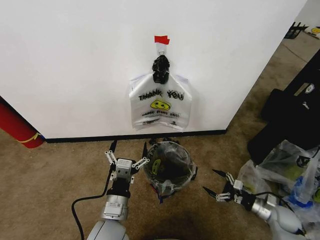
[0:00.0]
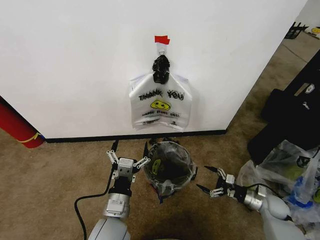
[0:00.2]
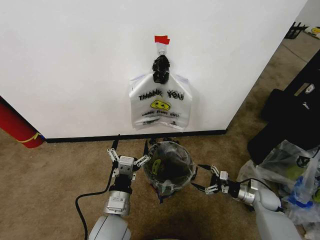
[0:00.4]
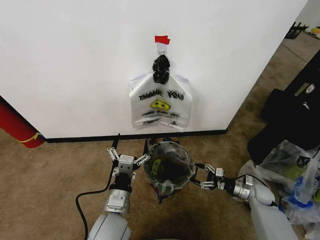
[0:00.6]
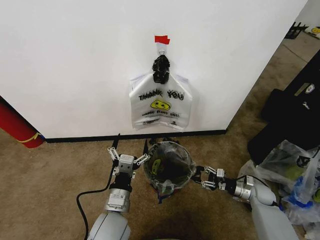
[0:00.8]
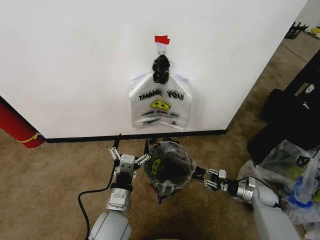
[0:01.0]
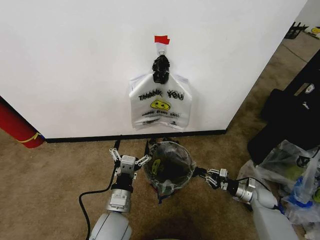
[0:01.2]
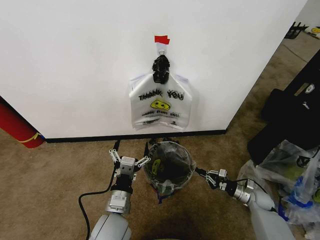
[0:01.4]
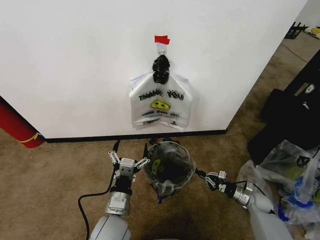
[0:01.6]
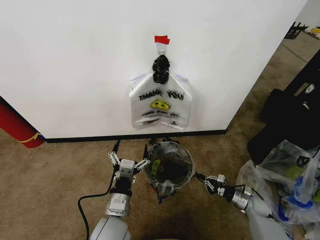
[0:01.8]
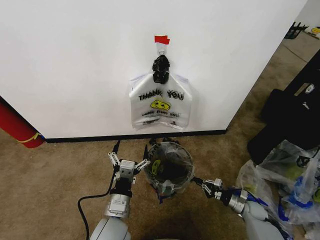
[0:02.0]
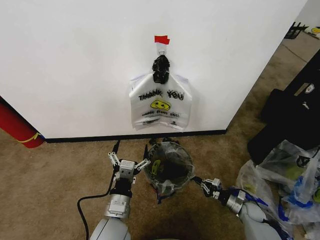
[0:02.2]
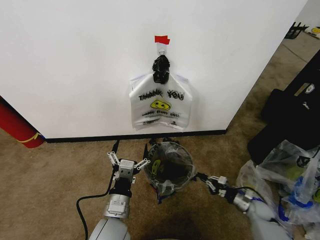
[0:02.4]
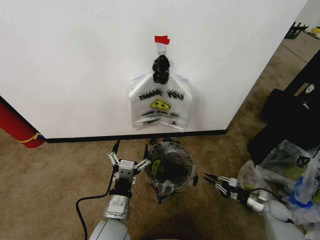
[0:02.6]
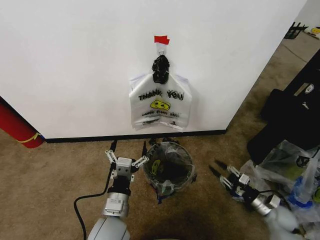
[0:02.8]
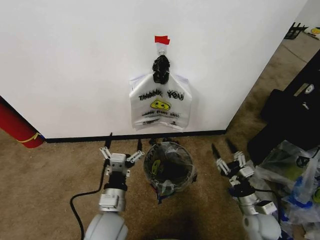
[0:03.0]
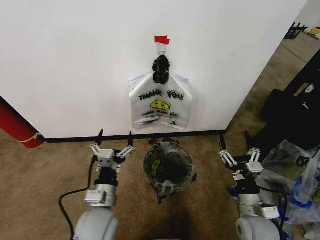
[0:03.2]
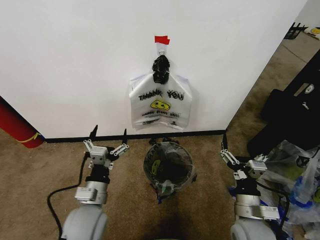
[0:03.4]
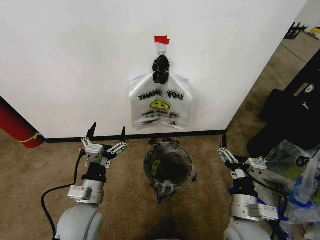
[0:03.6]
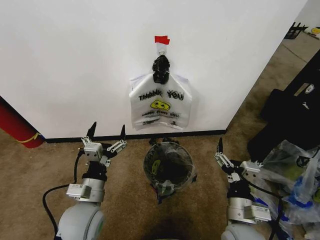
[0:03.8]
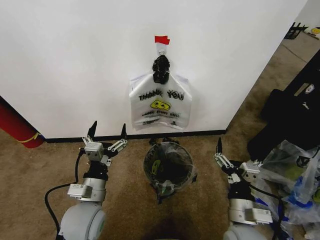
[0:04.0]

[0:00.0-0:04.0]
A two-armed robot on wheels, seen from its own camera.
Task of the whole recording: Pick up the garbage bag from the wall and place it over the trash bin.
0:00.0 to 0:01.4: The right gripper travels forward by some 10 cm, and closes up.
0:01.4 to 0:02.6: The right gripper changes place by some 5 cm.
0:02.6 to 0:04.0: The left gripper moves to the left, approximately 5 cm. The right gripper travels to the left, upward and backward by some 35 cm, and opens up.

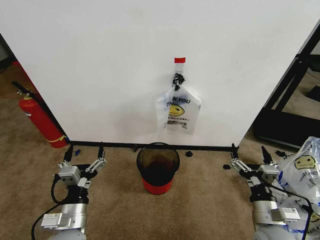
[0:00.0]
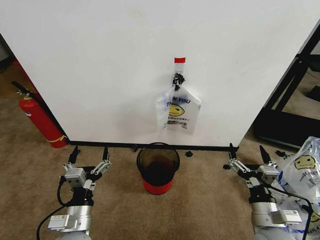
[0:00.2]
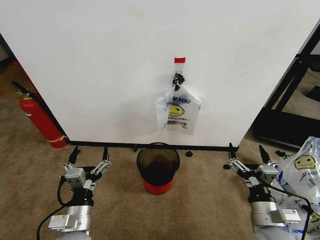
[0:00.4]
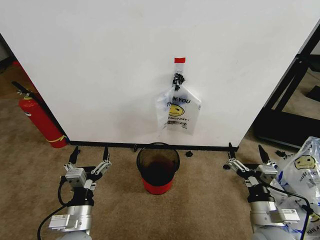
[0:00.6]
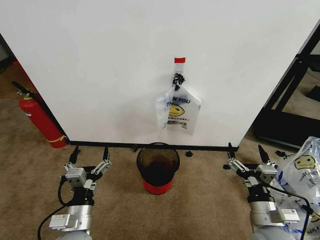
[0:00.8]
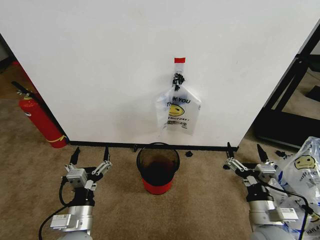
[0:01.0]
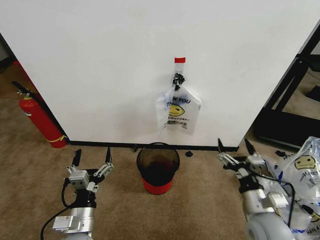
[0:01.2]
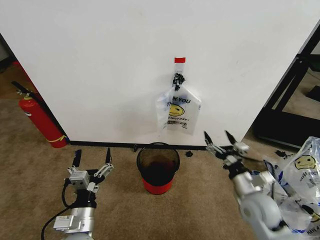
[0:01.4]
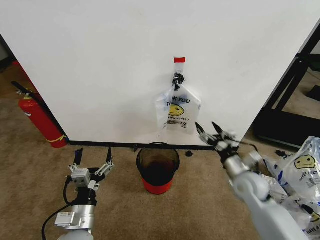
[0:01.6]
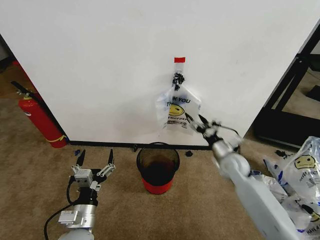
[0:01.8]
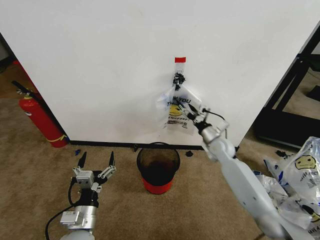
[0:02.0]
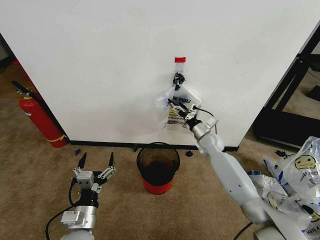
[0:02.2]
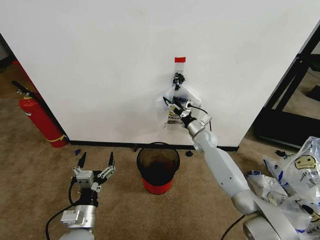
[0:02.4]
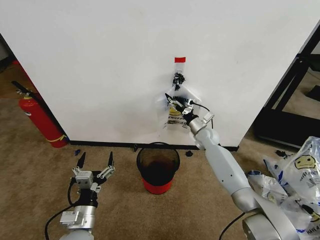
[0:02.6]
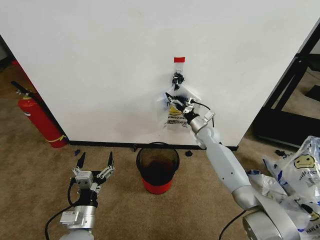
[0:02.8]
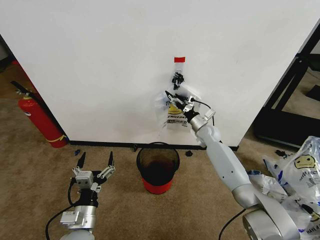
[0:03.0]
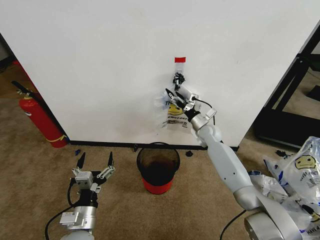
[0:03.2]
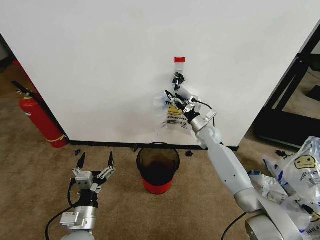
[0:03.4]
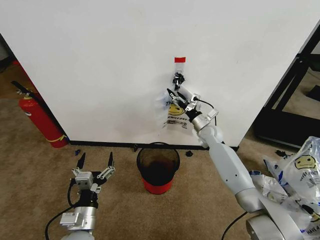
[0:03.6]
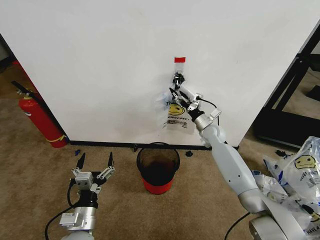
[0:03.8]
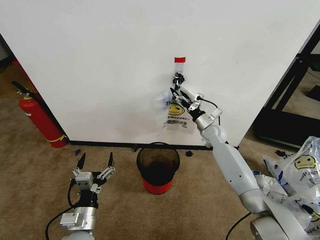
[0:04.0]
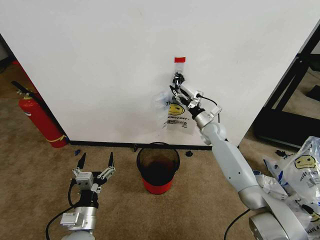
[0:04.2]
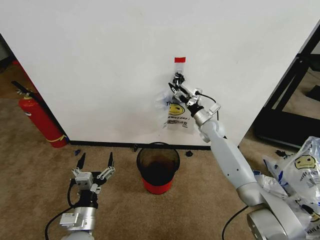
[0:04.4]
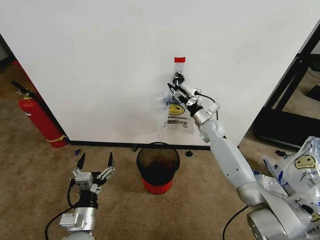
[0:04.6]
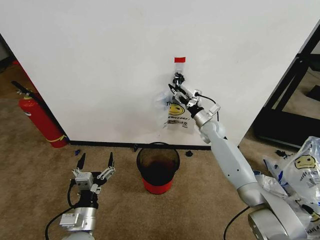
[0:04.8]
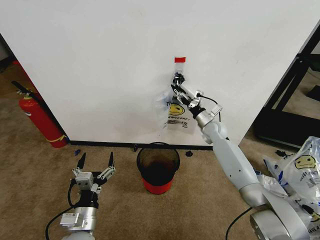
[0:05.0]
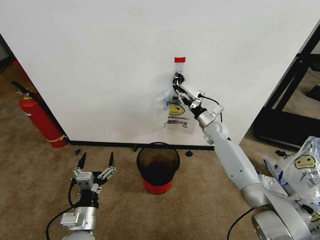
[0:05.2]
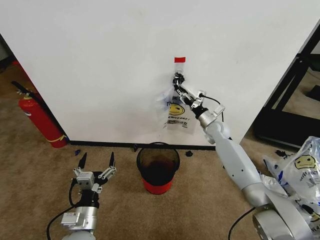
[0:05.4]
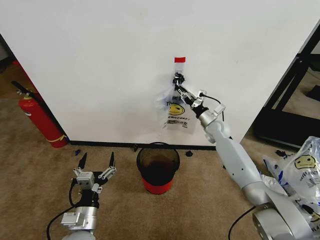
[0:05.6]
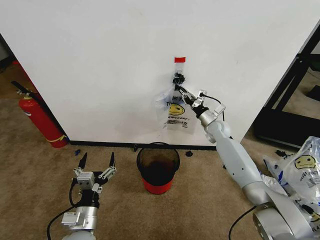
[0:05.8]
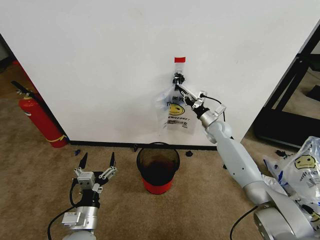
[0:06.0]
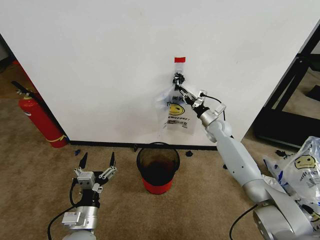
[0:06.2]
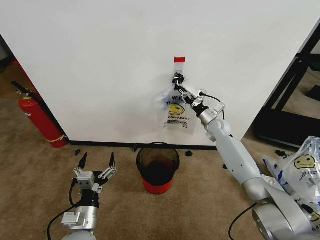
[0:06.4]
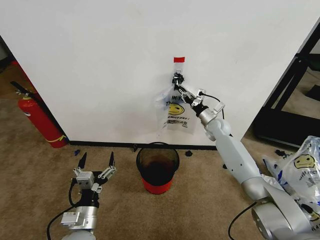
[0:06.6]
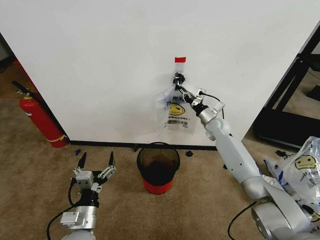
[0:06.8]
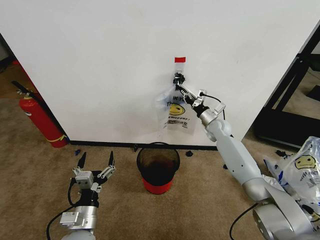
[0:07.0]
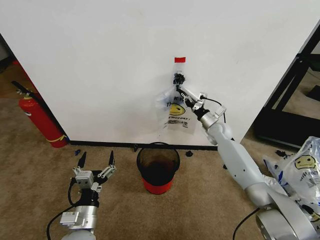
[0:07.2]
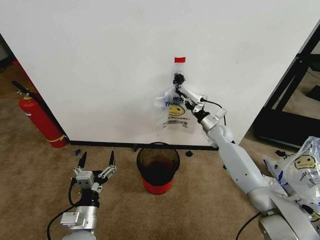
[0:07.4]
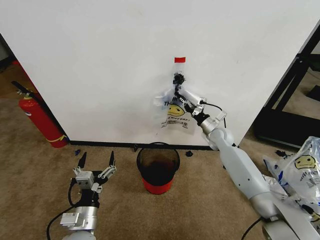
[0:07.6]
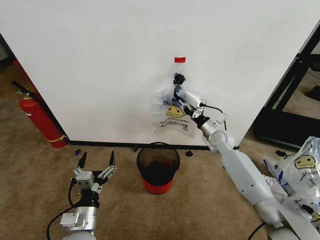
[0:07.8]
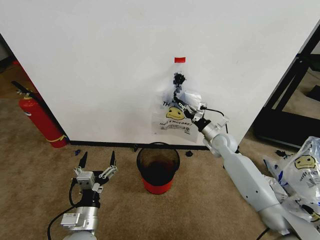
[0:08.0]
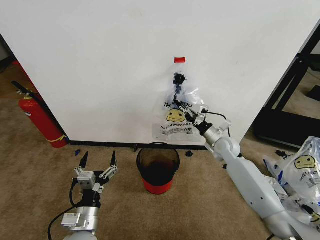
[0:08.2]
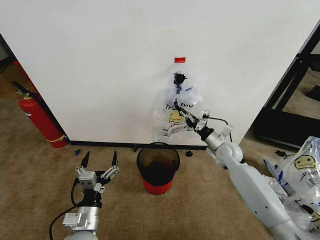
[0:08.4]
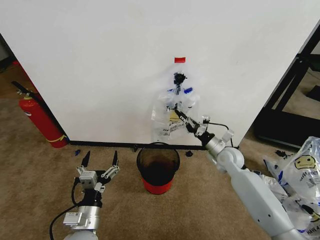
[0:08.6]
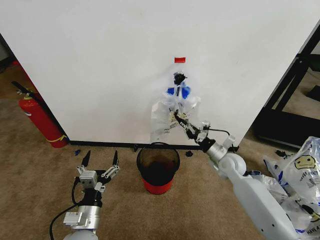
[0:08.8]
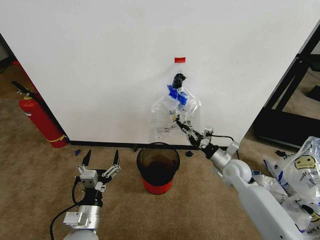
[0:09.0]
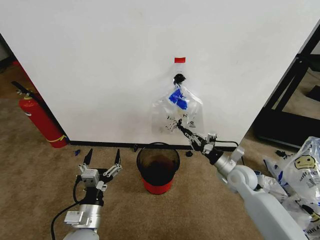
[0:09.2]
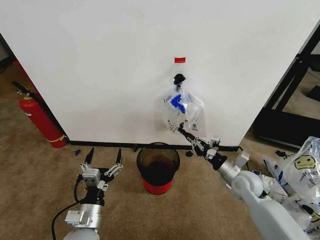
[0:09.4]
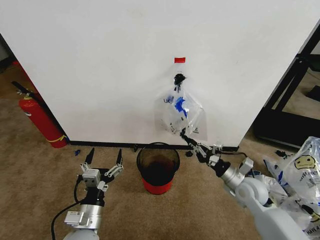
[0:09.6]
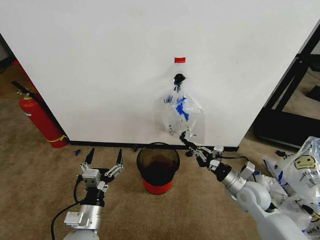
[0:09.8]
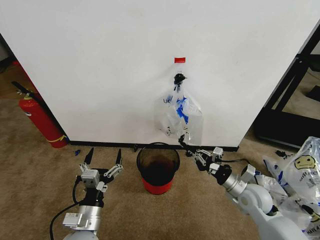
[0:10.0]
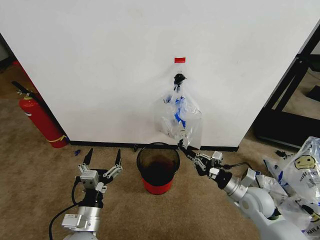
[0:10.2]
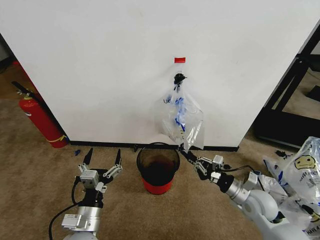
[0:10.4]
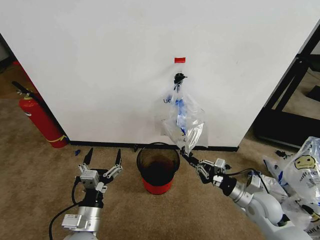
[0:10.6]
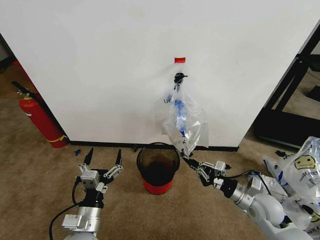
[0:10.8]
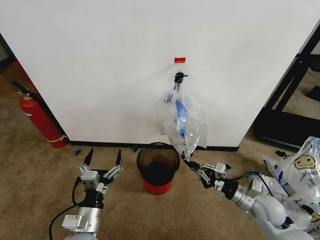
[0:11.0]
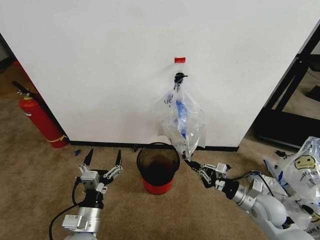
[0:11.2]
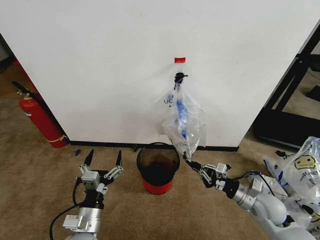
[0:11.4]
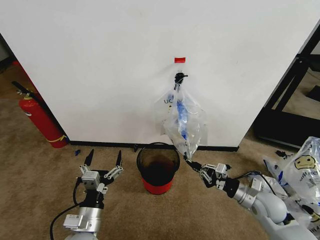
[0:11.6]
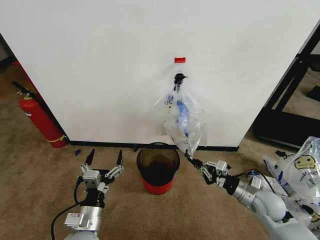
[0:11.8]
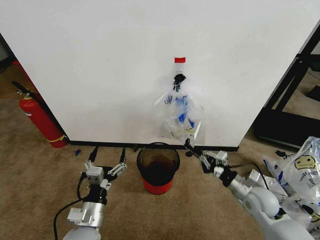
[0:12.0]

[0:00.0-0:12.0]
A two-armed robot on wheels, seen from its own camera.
Task of the whole recording: Pick up the garbage bag from the wall and place it over the trash bin.
0:01.6 to 0:03.0: The right gripper travels forward by roughly 25 cm.
0:03.0 to 0:04.4: The grippers move only a little.
0:04.4 to 0:06.0: The right gripper closes its fingers.
0:06.0 to 0:07.6: The grippers stay close to where they were, moving slightly.
0:07.6 to 0:09.0: The right gripper moves backward, some 15 cm.
0:09.0 to 0:10.4: The right gripper moves backward, about 10 cm.
0:10.4 to 0:12.0: The grippers make only small movements.

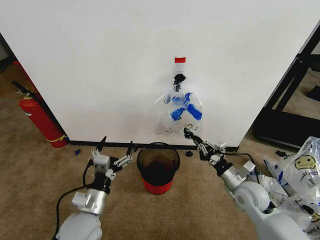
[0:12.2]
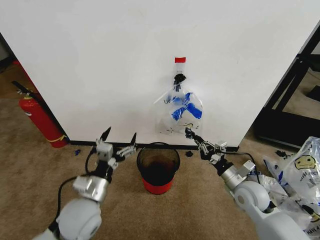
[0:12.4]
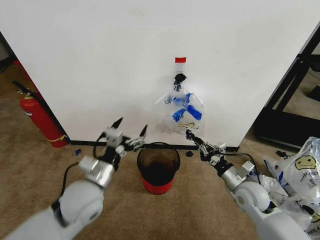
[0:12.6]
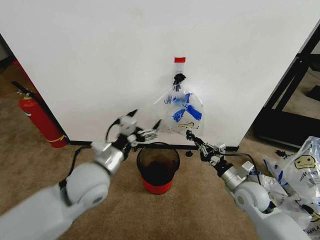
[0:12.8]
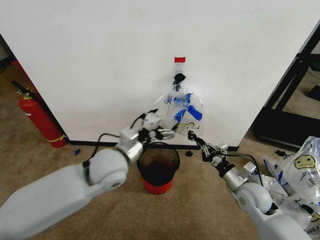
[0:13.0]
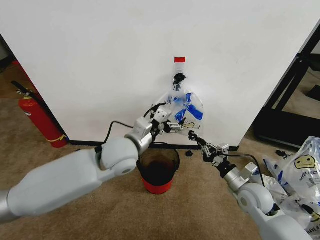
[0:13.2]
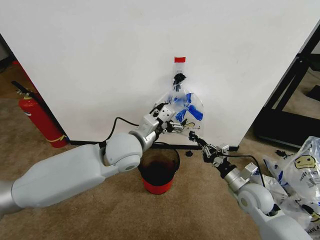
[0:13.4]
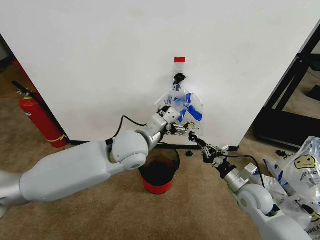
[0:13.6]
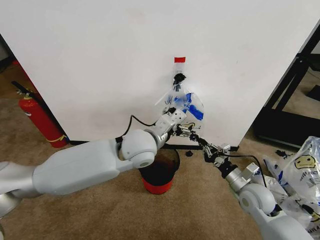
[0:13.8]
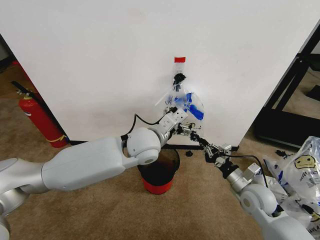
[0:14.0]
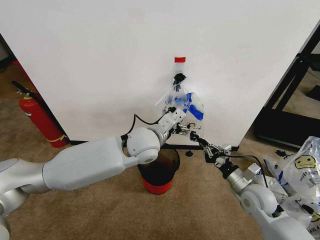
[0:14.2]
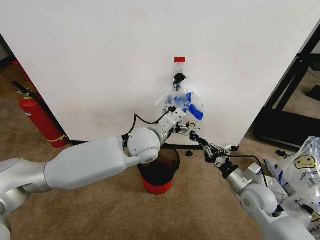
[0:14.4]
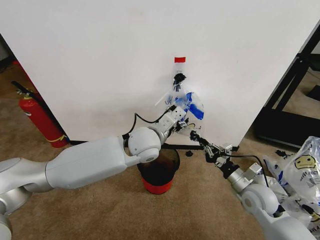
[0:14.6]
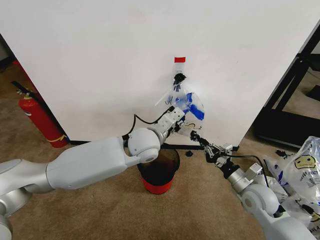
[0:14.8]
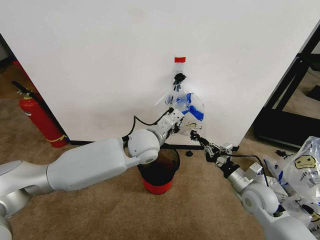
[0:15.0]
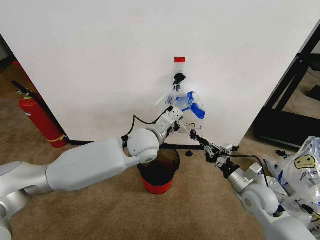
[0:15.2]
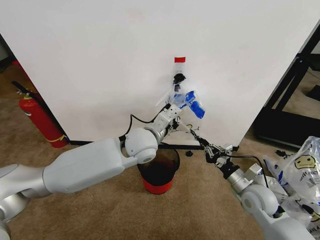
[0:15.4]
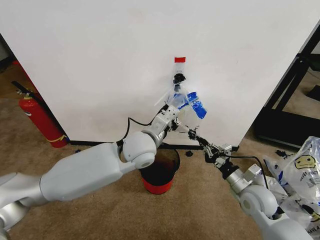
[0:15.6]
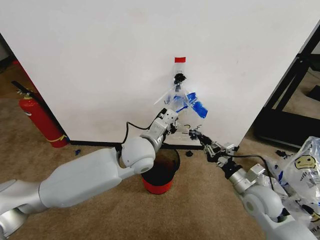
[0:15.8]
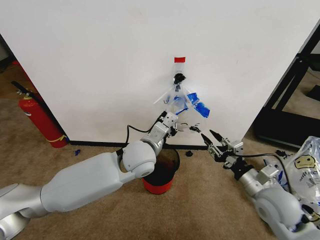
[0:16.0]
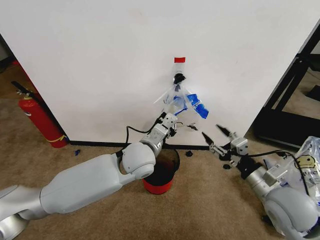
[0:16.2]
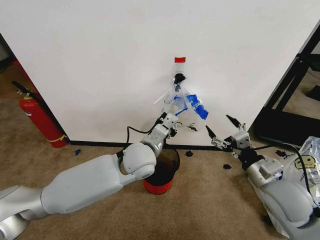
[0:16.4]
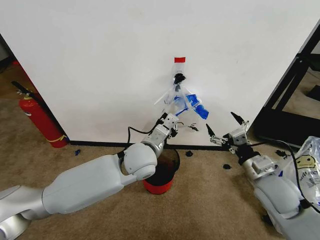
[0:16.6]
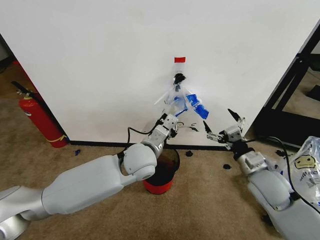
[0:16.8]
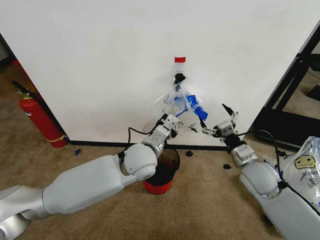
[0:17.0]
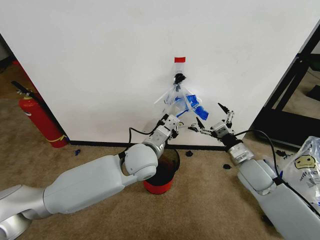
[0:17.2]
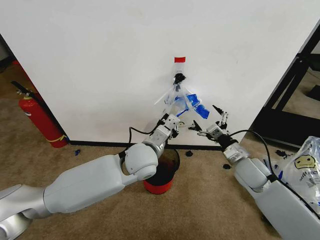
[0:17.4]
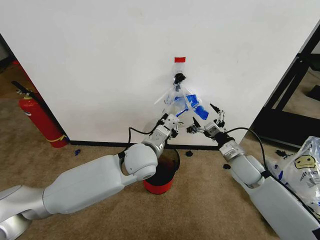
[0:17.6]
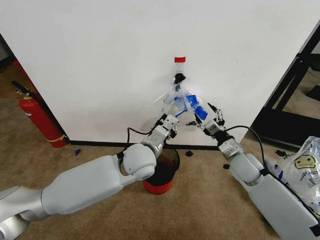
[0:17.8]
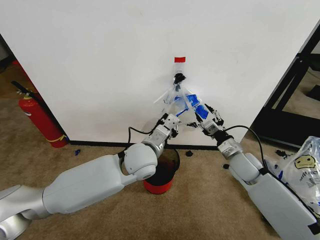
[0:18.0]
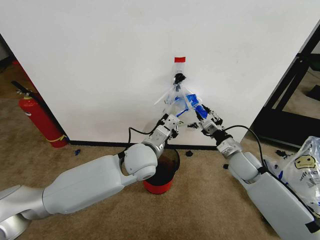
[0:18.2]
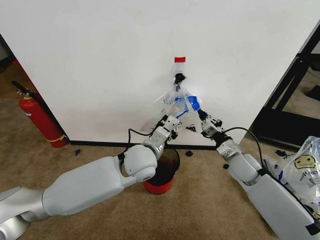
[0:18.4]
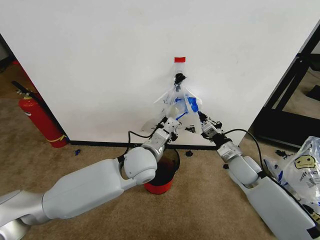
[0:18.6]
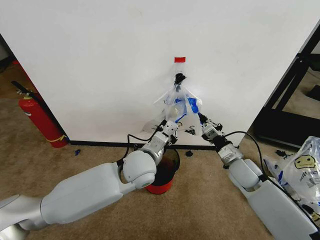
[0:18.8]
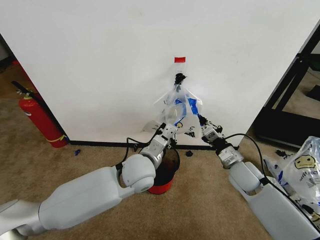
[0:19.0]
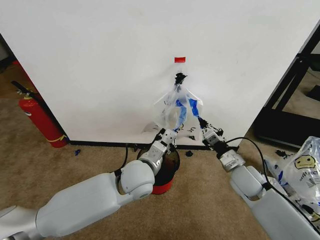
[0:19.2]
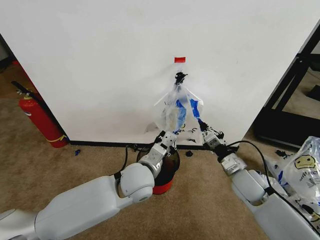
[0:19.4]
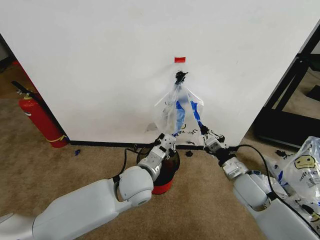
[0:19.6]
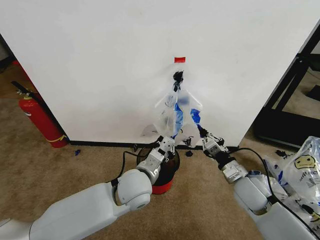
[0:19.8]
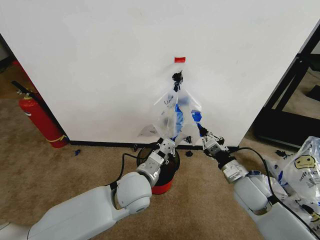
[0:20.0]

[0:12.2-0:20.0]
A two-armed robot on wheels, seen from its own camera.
Task of the whole recording: Pick up the garbage bag from the wall and place it over the trash bin.
0:12.2 to 0:13.8: The left gripper goes approximately 25 cm forward, upward and to the right.
0:13.8 to 0:15.4: The left gripper closes up.
0:15.4 to 0:16.8: The right gripper shifts some 10 cm upward, and opens.
0:16.8 to 0:18.4: The right gripper heads forward, covering some 10 cm, and closes.
0:18.4 to 0:20.0: The two grippers go some 10 cm backward.
